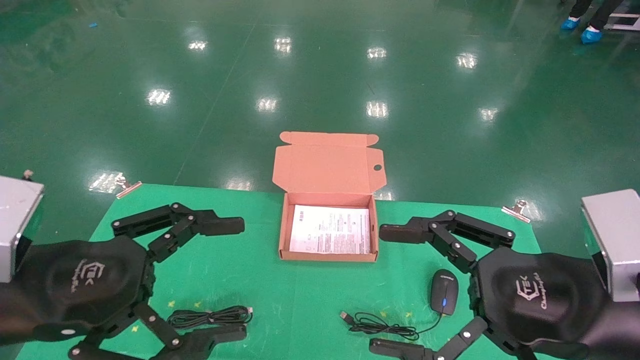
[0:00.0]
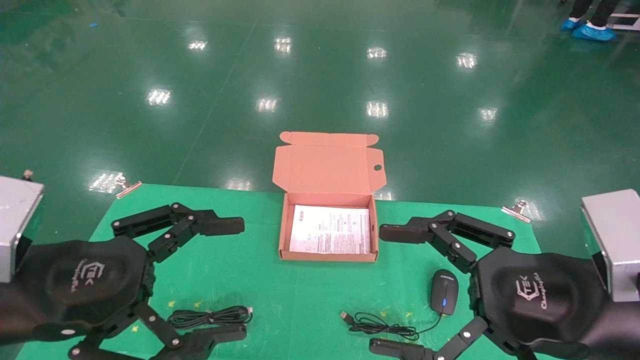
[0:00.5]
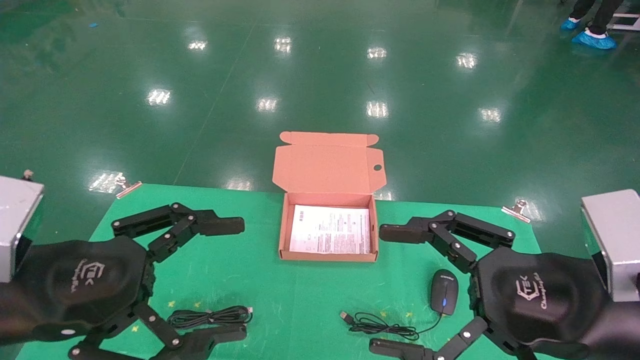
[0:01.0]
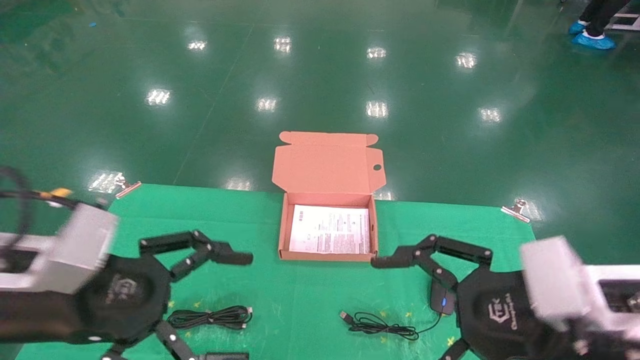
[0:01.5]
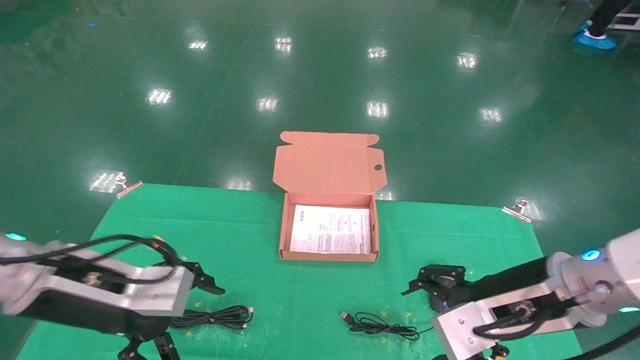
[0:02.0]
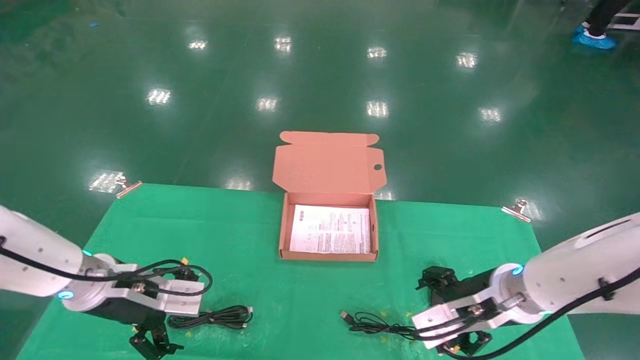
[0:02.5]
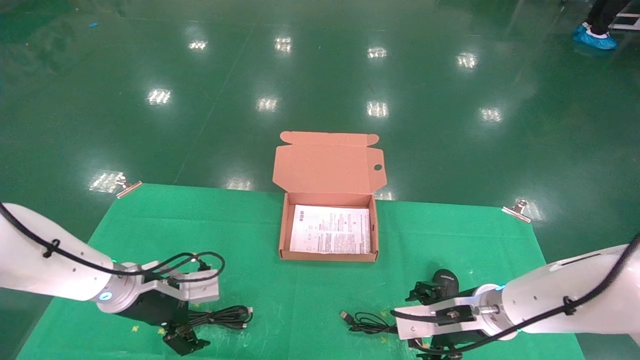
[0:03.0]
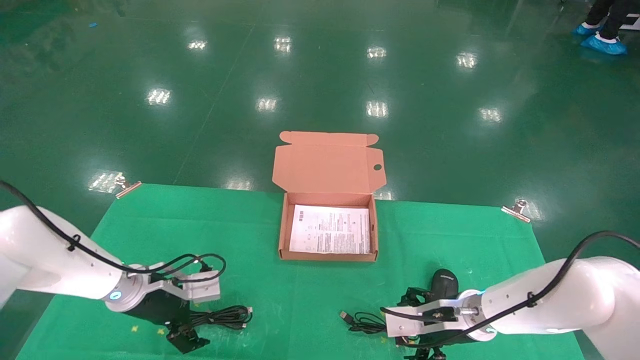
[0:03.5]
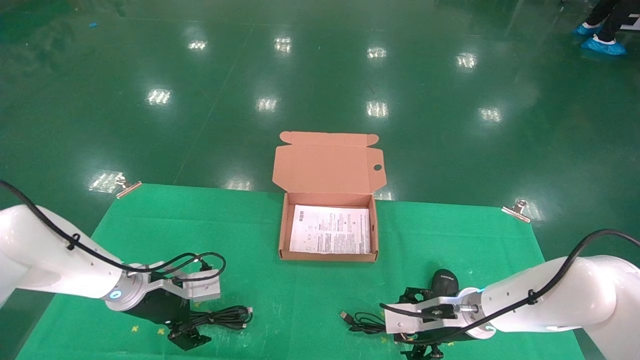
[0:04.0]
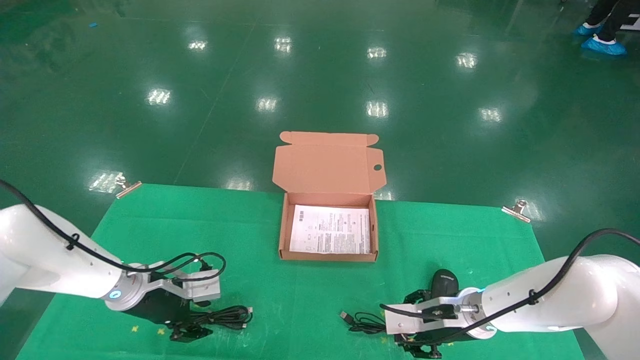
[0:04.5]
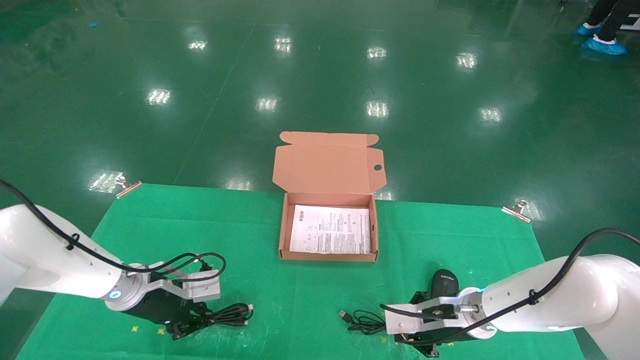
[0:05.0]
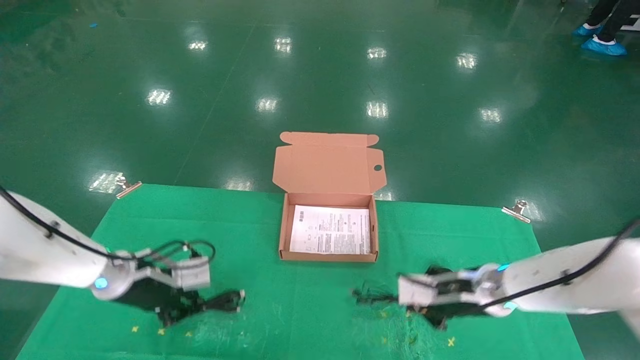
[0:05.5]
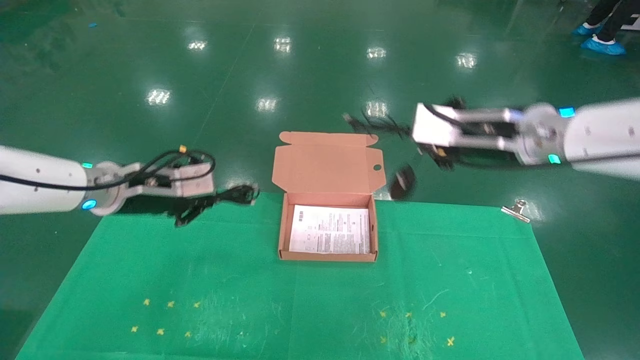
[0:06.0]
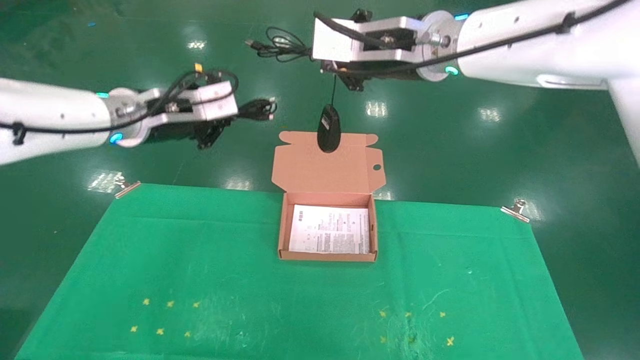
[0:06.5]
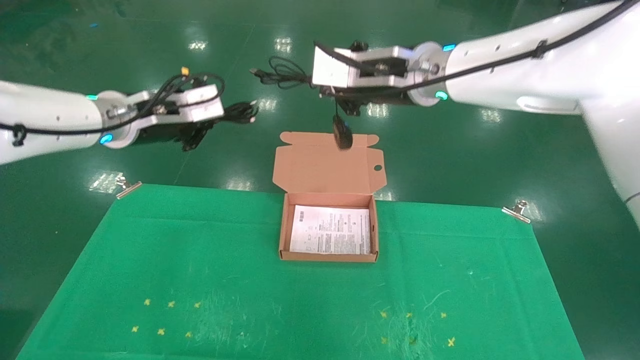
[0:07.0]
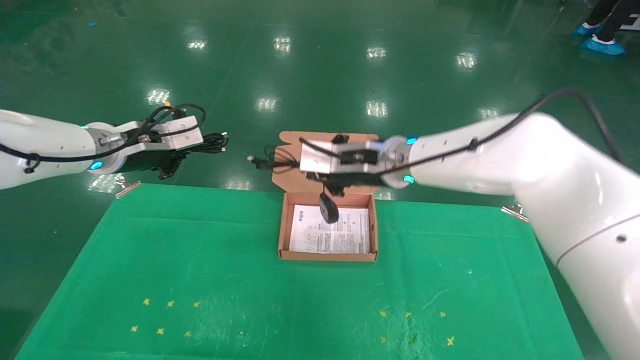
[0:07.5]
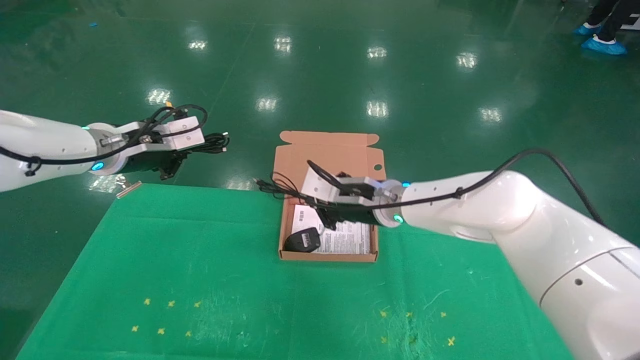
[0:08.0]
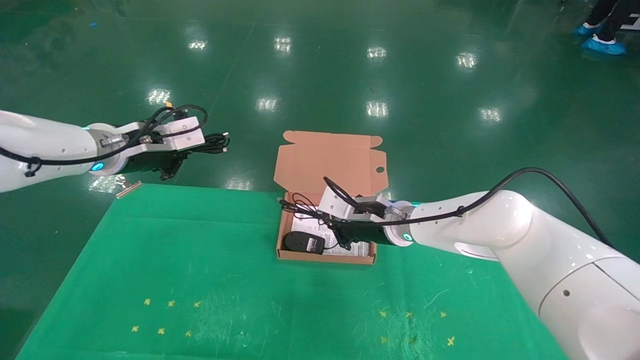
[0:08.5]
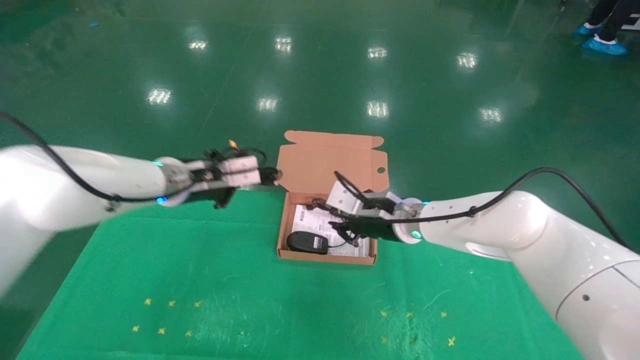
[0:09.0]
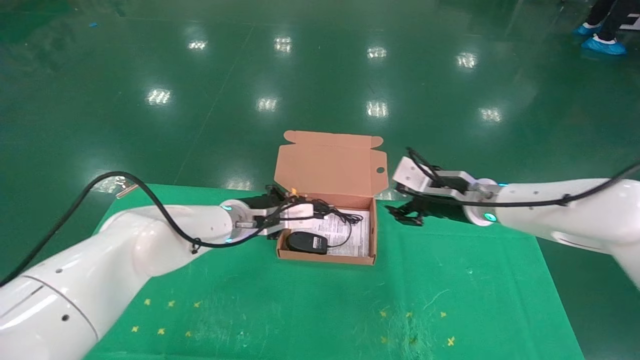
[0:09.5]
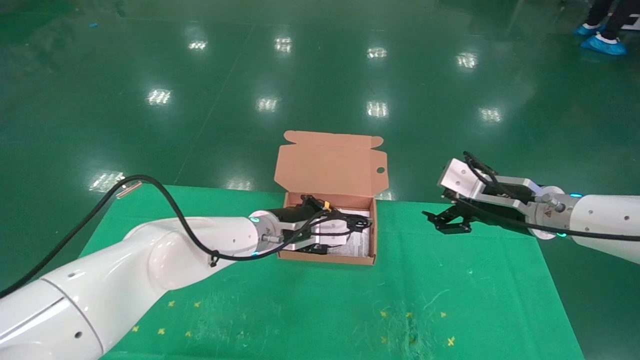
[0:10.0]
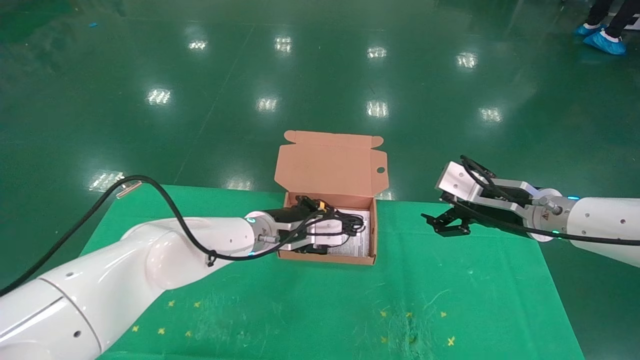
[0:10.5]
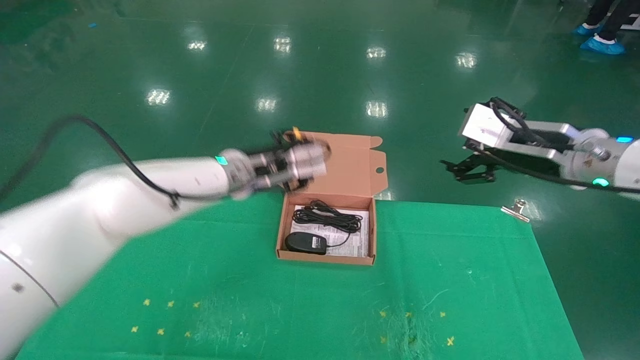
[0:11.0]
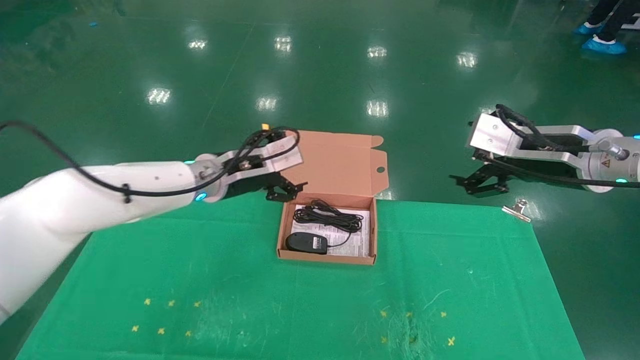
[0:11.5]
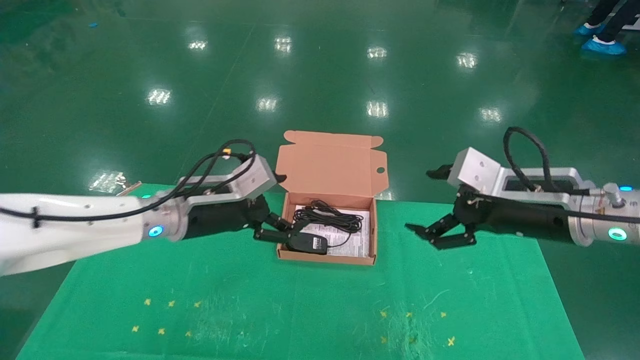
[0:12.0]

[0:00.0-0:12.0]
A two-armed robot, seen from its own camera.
Task of the whole recording: grasp data cable left put into box grasp mouse right put into box.
Step, 0:01.5 to 0:05.0: Grab and pick up both the mouse and power cord from the accessory packaging area at the same time.
Step, 0:05.5 to 0:10.0: Place the mouse and power cord into the box.
0:00.0 to 0:02.0: Both grippers travel together forward, some 10 cm.
0:02.0 to 0:04.0: The left gripper heads forward and downward, covering roughly 20 cm; the right gripper goes approximately 20 cm downward and forward.
0:04.0 to 0:06.0: The left gripper moves upward, some 15 cm, and closes its fingers. Meanwhile the right gripper travels upward by roughly 25 cm, and closes up.
0:06.0 to 0:08.0: The right gripper moves to the left, downward and forward, some 20 cm. Meanwhile the left gripper moves upward, roughly 5 cm.
0:08.0 to 0:10.0: The right gripper moves to the right, some 20 cm, and opens its fingers, while the left gripper goes some 25 cm to the right and downward.
0:10.0 to 0:12.0: The right gripper goes about 10 cm backward. The left gripper is displaced to the left, backward and upward by roughly 15 cm, and opens its fingers.
